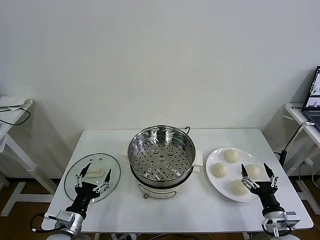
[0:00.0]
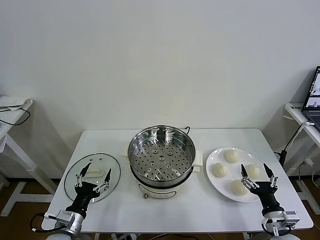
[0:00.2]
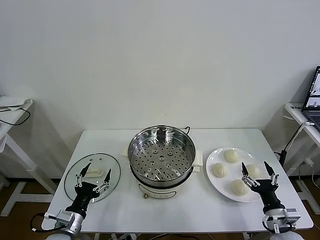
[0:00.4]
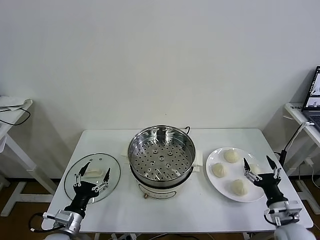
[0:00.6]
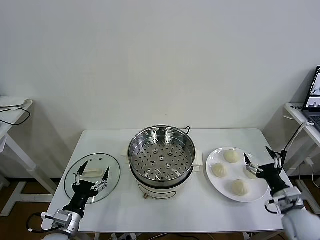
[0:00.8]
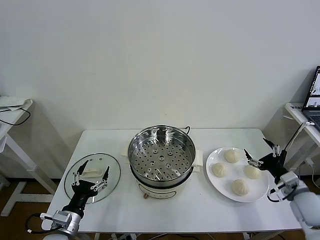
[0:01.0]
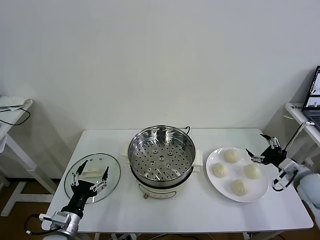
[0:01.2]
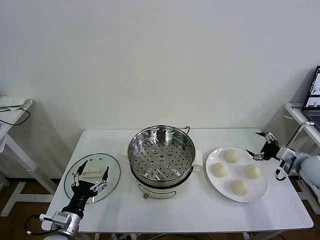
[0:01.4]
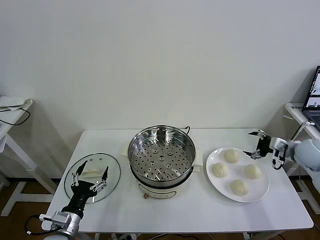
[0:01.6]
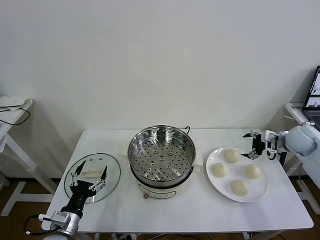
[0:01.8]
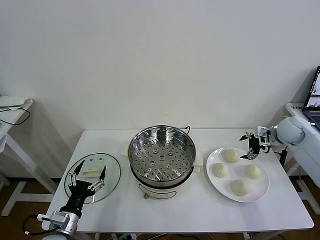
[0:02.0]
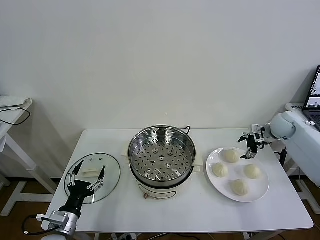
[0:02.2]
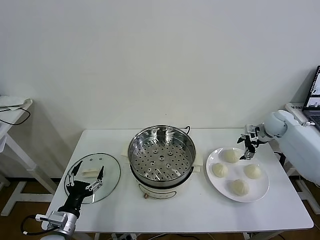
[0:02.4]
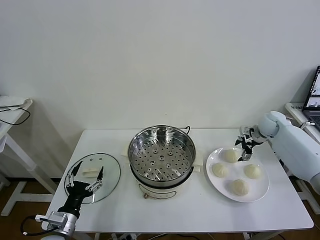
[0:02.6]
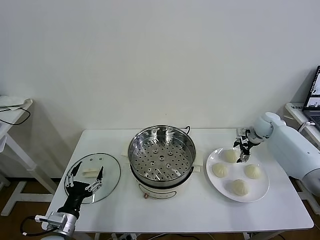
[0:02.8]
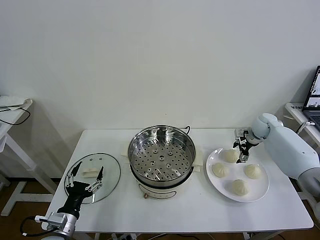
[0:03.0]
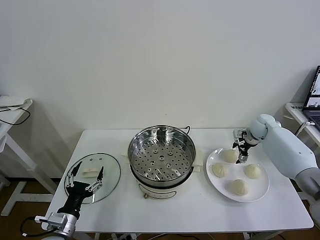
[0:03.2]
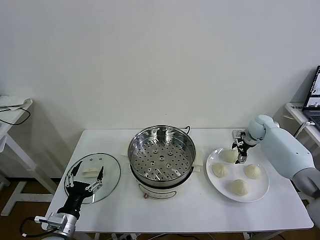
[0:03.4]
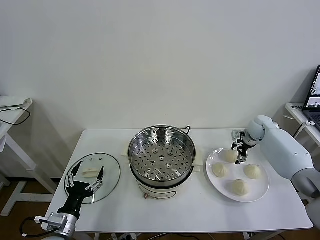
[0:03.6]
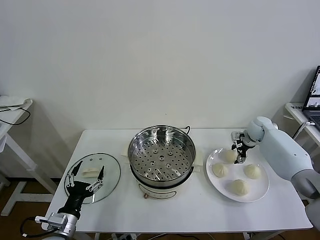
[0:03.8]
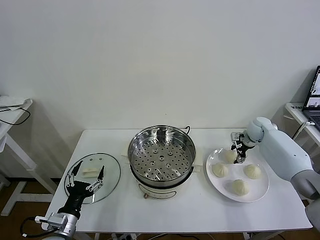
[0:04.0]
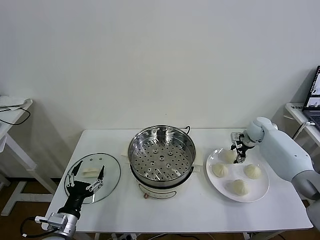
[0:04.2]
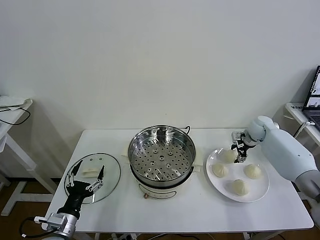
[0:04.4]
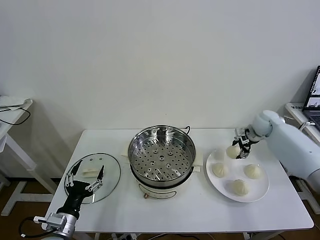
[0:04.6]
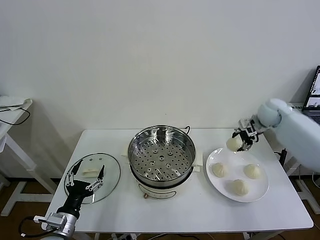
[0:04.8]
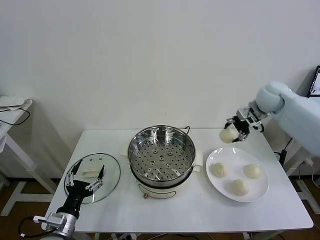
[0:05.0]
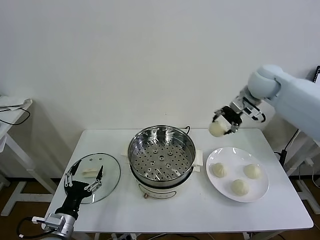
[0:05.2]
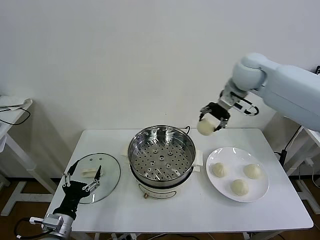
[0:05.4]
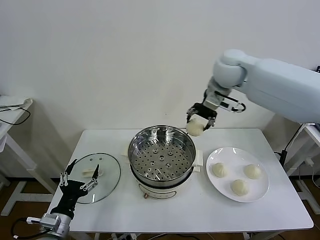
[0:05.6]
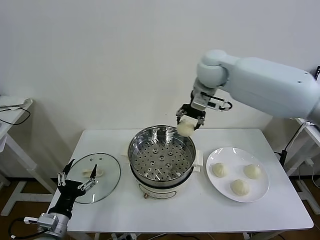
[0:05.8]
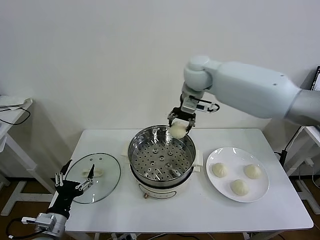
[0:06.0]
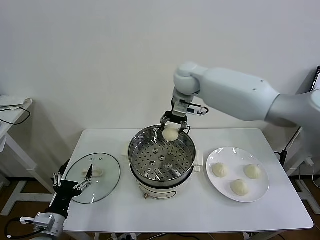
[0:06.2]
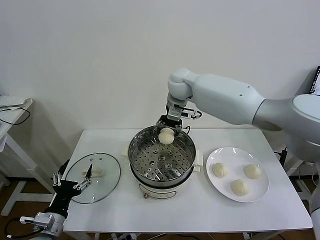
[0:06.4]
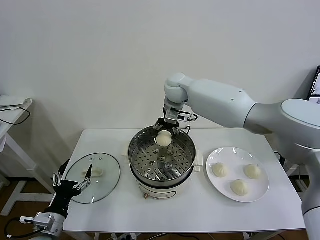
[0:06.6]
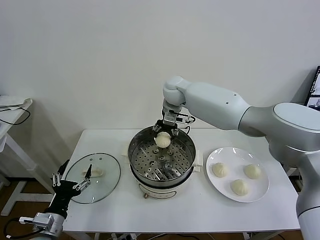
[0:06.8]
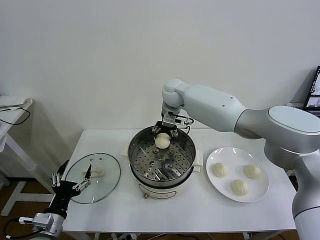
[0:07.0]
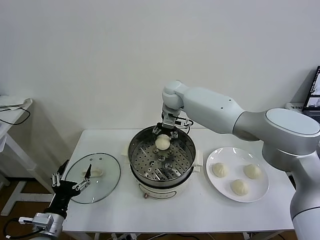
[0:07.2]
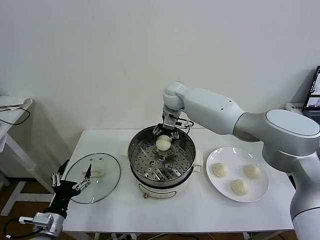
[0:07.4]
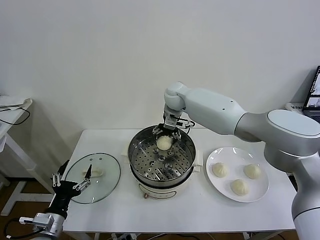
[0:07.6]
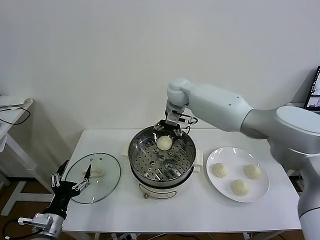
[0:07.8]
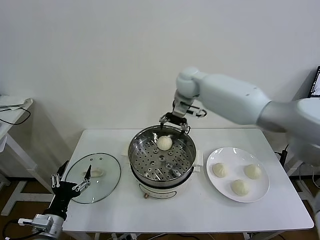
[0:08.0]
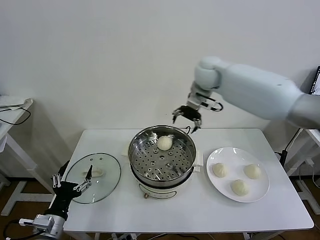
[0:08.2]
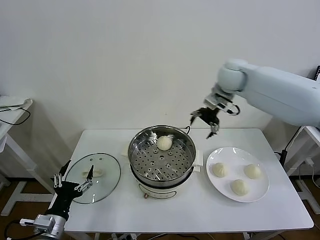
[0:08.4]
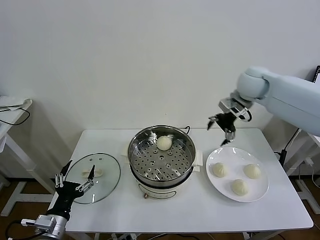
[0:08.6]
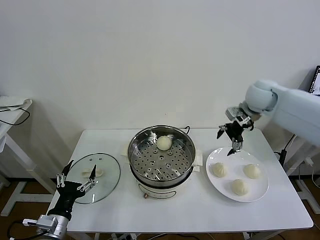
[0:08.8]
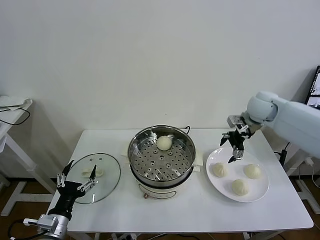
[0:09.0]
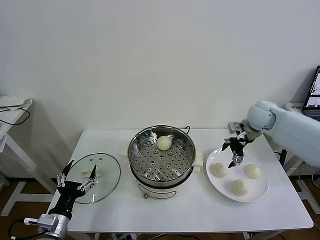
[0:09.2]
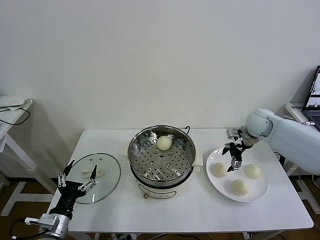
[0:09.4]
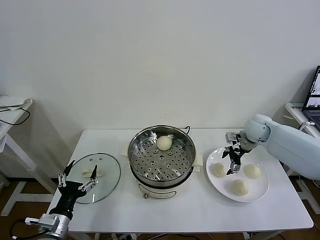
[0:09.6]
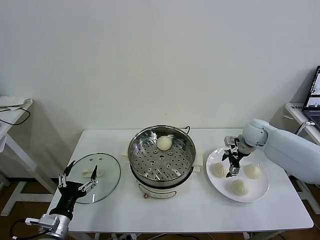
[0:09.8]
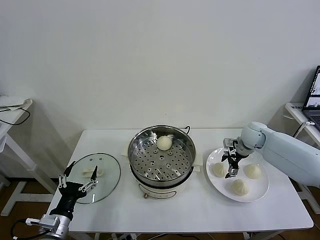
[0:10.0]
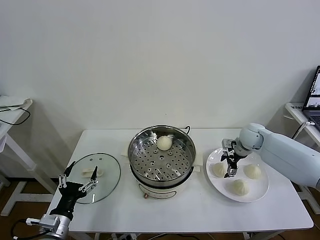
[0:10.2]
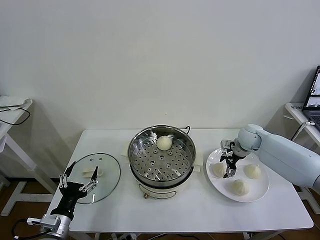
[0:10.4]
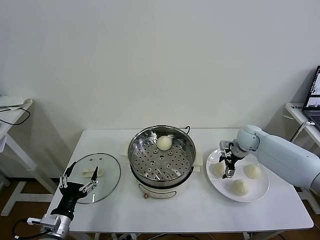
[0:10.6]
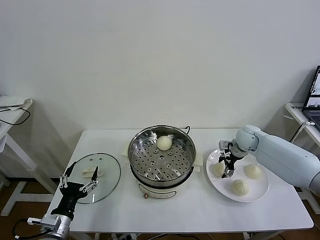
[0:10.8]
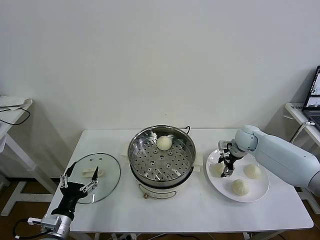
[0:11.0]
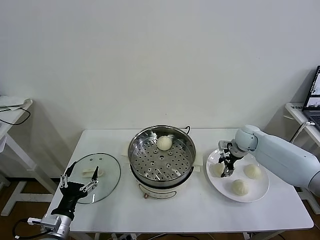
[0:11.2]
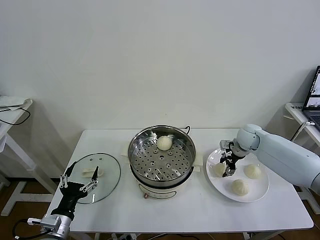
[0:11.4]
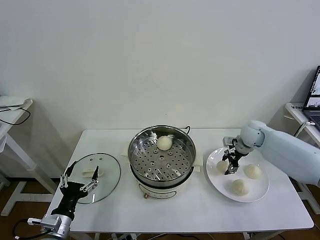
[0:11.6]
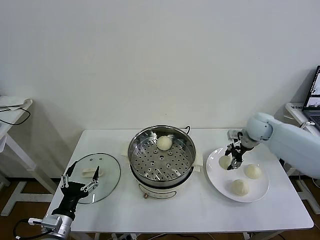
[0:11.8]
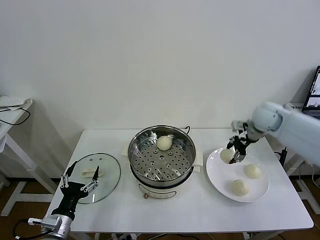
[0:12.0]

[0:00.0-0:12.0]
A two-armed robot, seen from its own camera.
Task of the whole recording: take steamed baozi put them in steamer then cover it.
Step, 0.0 to 4.0 s: Grasp the baozi in the plate with right gripper.
Step, 4.2 to 7.8 s: Place the baozi on the steamer with right gripper.
Step, 8.0 to 11.2 s: Grasp the baozi in the plate with right gripper.
1.6 to 3.0 s: The right gripper moves forward and to the left, roughly 15 cm.
3.0 to 4.4 s: The right gripper closes up.
4.4 to 6.0 s: The right gripper moves to the left and upward, approximately 40 cm.
6.0 to 7.6 s: The right gripper heads downward, covering roughly 10 cm, and opens.
7.6 to 9.0 s: The right gripper shifts roughly 30 cm to the right.
9.0 to 10.4 s: The right gripper travels downward by approximately 15 cm.
10.4 to 12.0 s: The right gripper heads upward, covering about 15 cm, and closes its fingers.

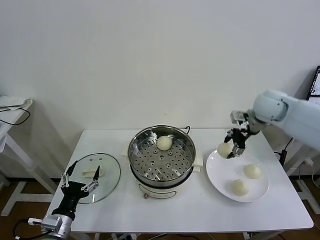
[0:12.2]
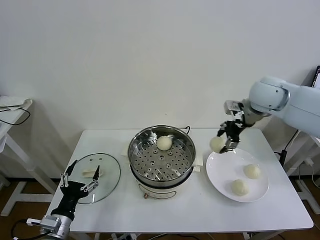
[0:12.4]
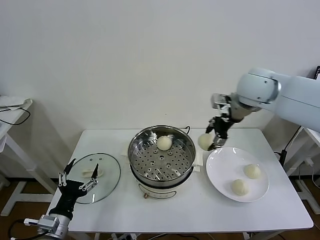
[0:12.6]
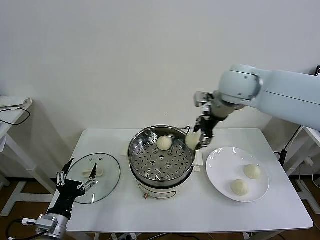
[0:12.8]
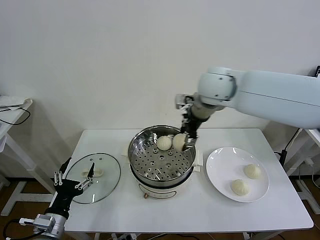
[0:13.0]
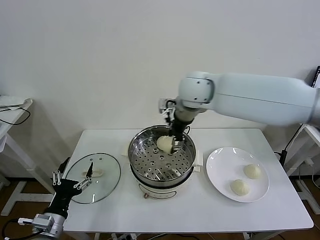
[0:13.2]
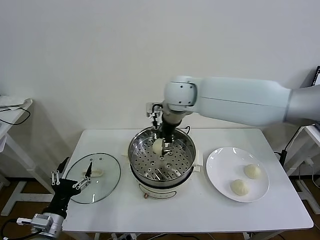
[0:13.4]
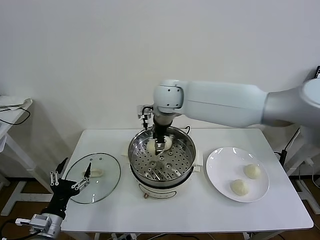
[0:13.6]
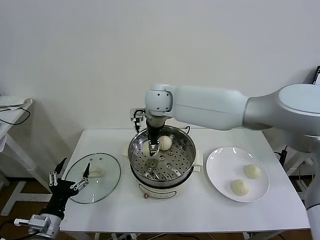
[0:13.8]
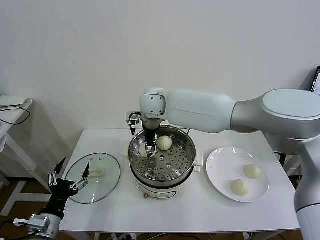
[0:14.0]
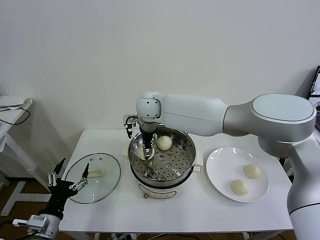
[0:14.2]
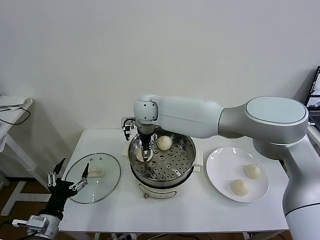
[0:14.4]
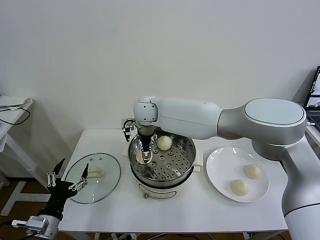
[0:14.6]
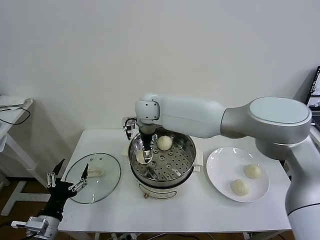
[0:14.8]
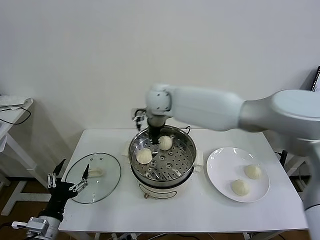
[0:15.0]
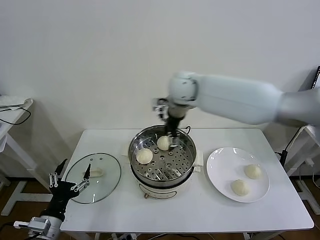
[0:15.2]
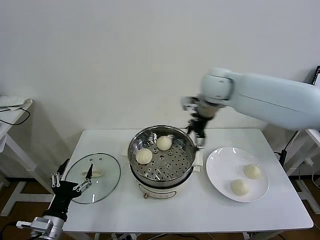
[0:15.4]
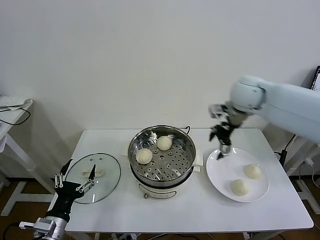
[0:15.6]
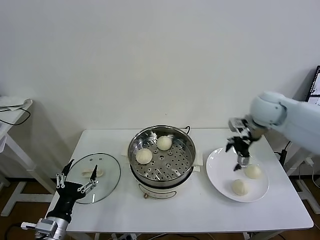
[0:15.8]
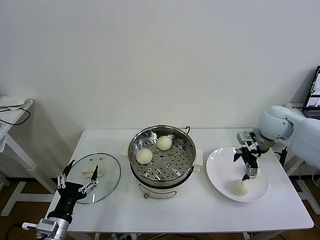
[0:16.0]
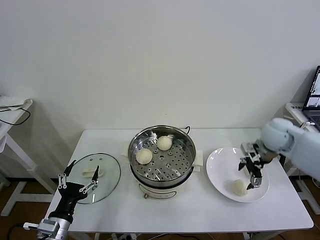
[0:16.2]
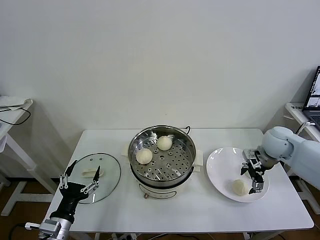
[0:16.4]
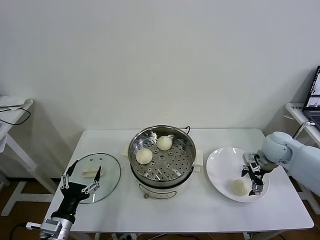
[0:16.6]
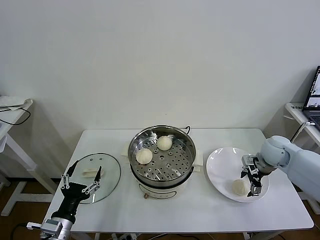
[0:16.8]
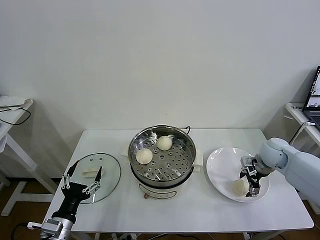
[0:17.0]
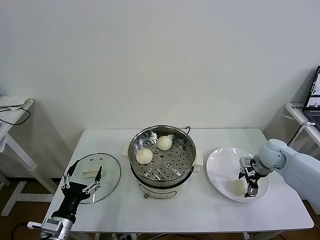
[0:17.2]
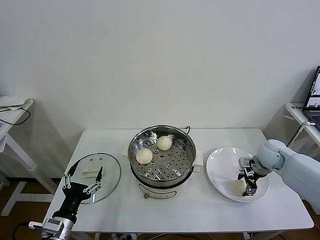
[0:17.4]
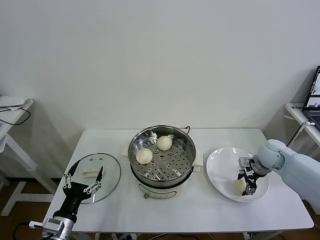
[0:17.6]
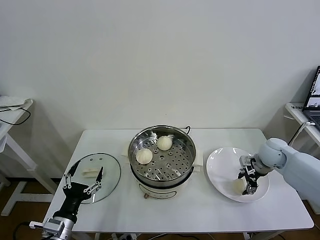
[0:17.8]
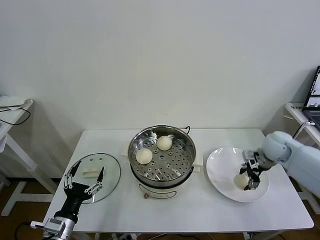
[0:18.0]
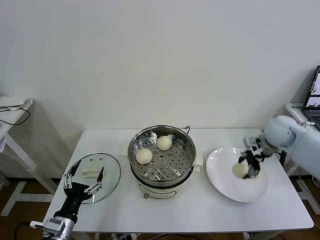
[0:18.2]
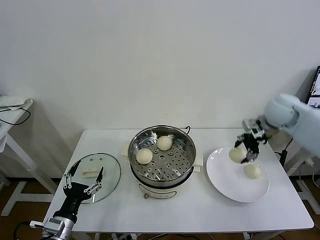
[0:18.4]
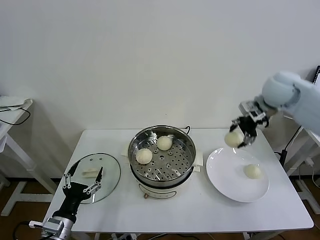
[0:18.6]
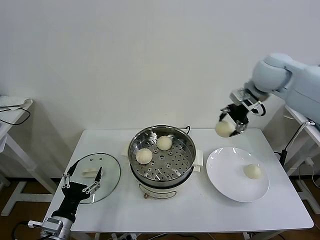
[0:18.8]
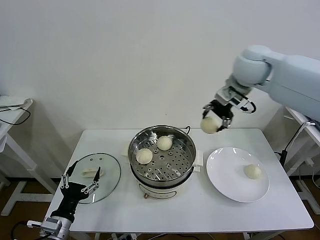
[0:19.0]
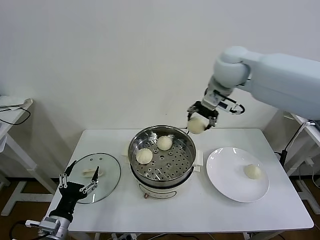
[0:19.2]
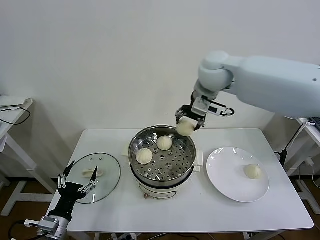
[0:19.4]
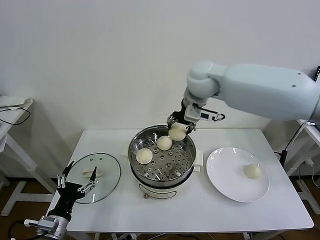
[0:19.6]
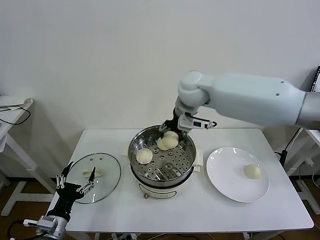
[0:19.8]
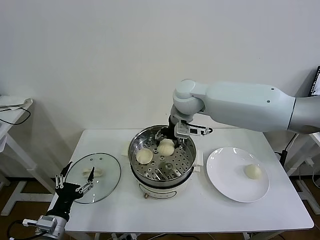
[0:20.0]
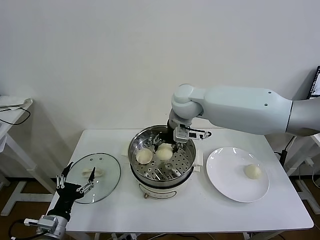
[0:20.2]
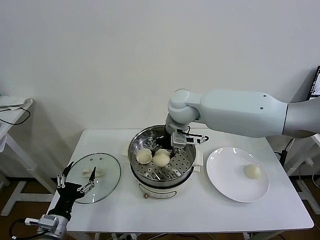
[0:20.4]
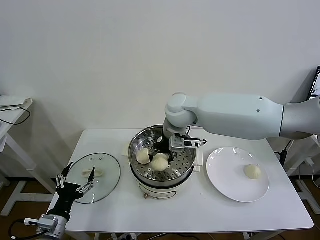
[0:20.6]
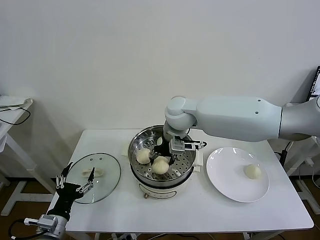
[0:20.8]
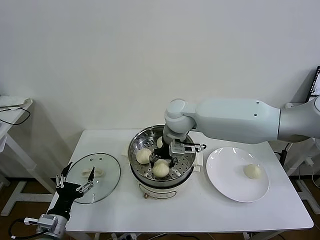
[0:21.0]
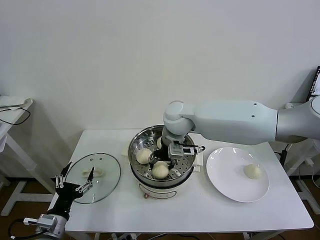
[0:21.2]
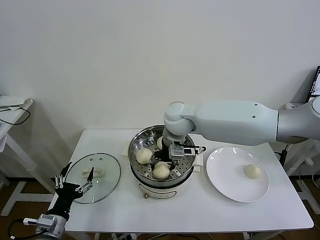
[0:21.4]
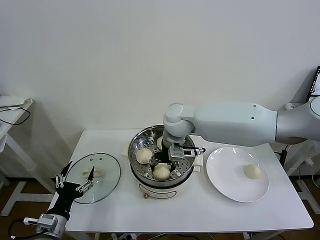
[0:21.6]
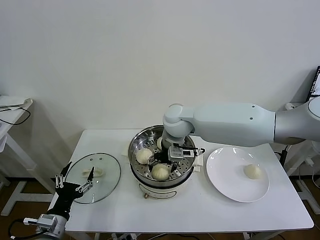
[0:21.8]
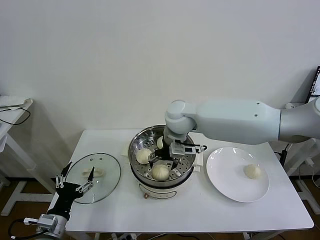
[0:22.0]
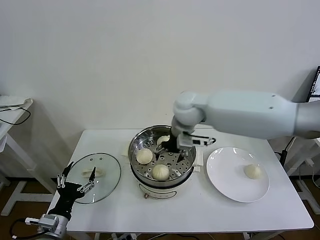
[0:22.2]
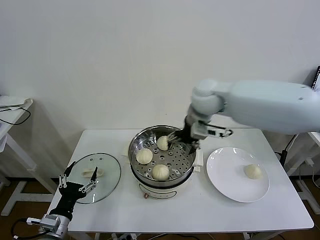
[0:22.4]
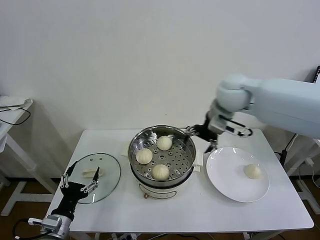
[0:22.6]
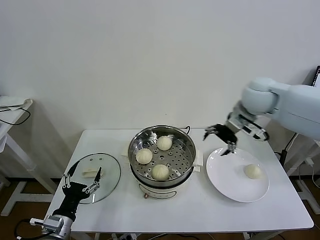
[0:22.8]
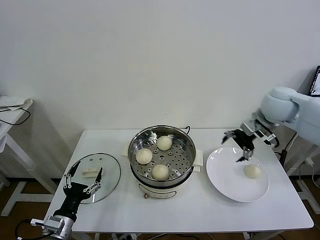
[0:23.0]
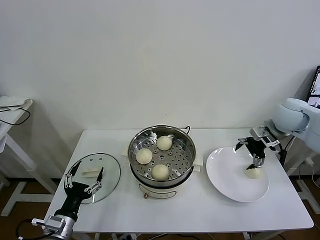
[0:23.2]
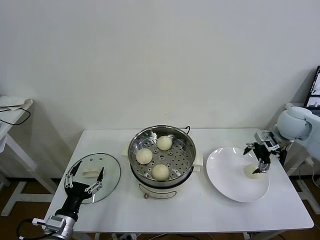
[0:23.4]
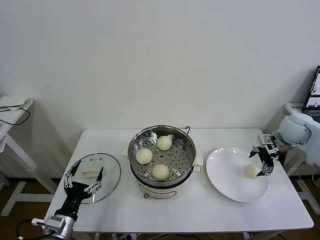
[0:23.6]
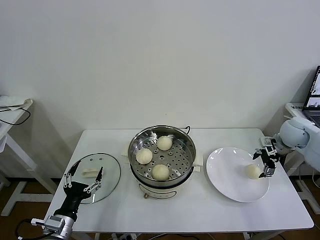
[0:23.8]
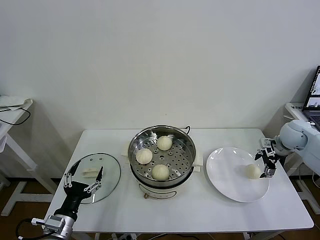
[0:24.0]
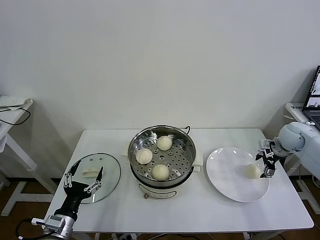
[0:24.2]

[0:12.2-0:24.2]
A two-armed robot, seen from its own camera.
Task of the whole recording: take steamed baozi put them in steamer then cover it.
Step, 12.2 to 14.6 s: Place the baozi on the steamer with right gripper.
Step, 15.0 to 17.6 s: Grasp the baozi in the plate with right gripper.
Step, 17.8 to 22.0 s: Place the baozi on the steamer with right gripper.
12.2 to 13.8 s: The right gripper goes some 35 cm to the left.
13.8 to 15.2 s: The right gripper moves to the right, some 10 cm, and opens.
15.2 to 16.6 s: The right gripper heads to the right and downward, covering about 35 cm.
16.6 to 18.2 s: The right gripper travels upward by approximately 10 cm, and closes up.
18.2 to 19.8 s: The right gripper goes approximately 30 cm to the left.
19.8 to 21.2 s: The right gripper moves downward, about 5 cm.
21.2 to 22.6 s: The right gripper goes some 20 cm to the right and upward, and opens up.
22.6 to 24.2 s: The right gripper heads to the right and downward, covering some 30 cm.
